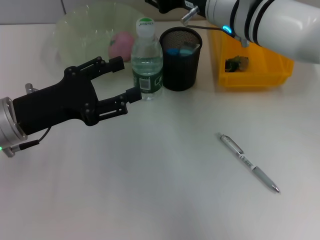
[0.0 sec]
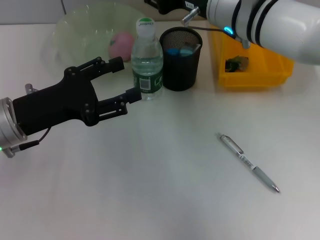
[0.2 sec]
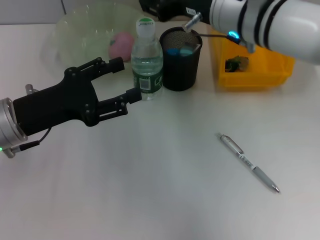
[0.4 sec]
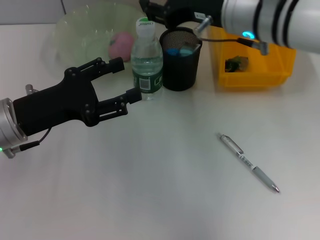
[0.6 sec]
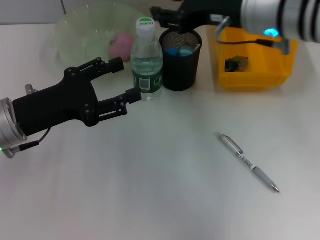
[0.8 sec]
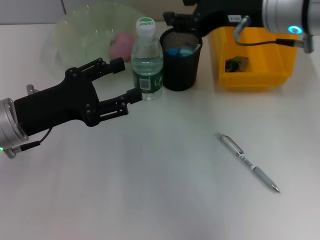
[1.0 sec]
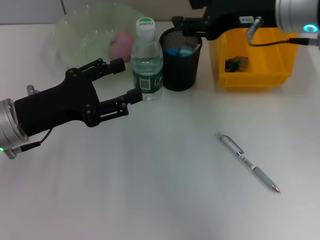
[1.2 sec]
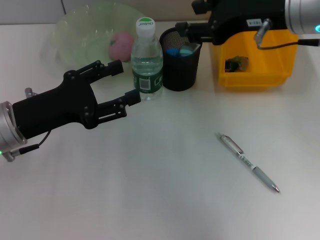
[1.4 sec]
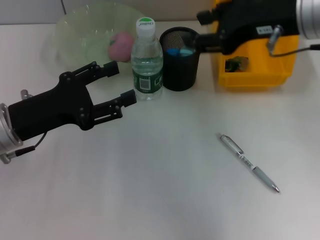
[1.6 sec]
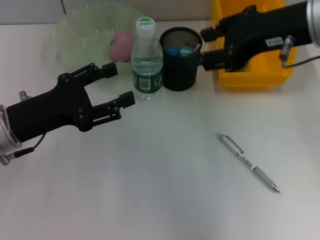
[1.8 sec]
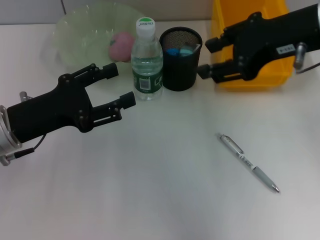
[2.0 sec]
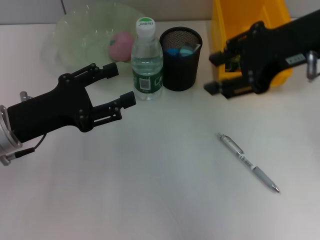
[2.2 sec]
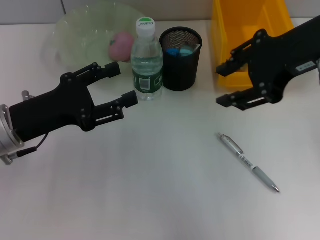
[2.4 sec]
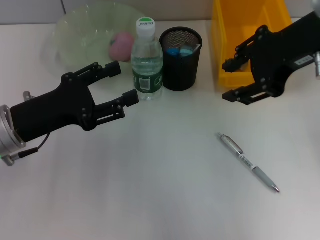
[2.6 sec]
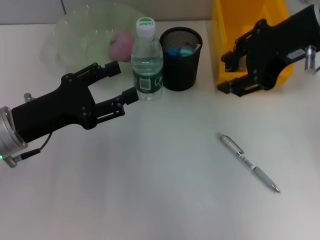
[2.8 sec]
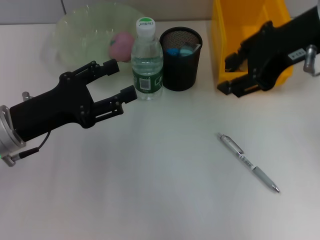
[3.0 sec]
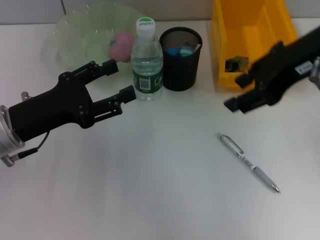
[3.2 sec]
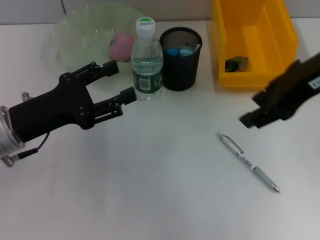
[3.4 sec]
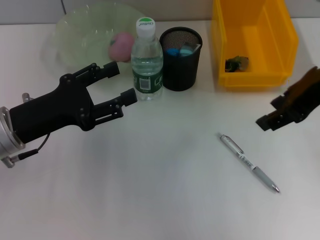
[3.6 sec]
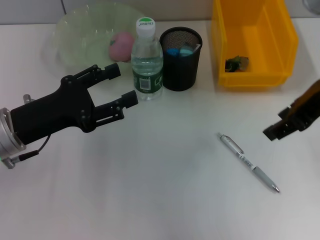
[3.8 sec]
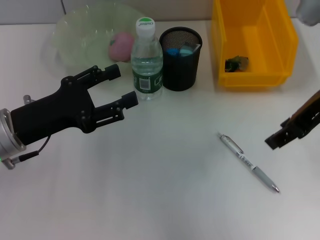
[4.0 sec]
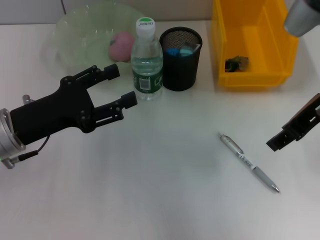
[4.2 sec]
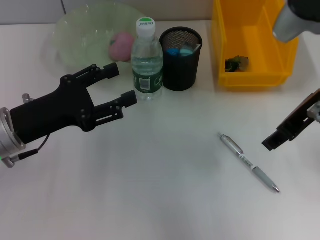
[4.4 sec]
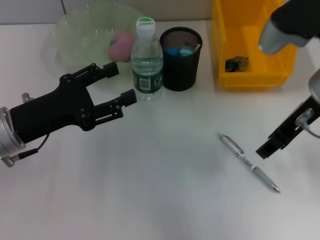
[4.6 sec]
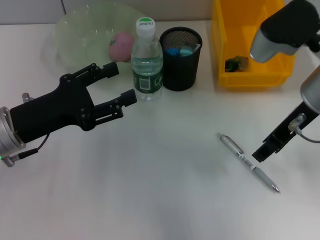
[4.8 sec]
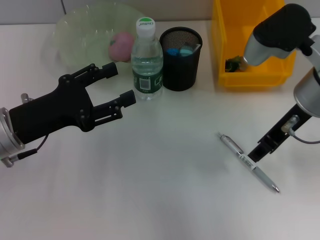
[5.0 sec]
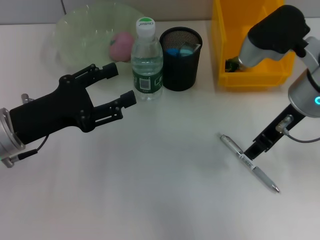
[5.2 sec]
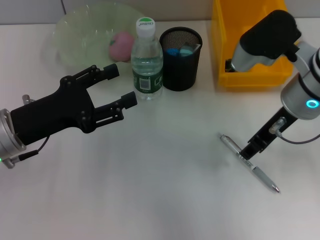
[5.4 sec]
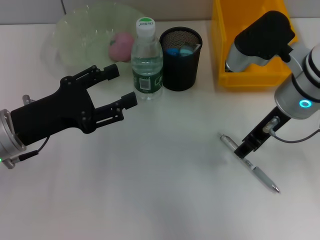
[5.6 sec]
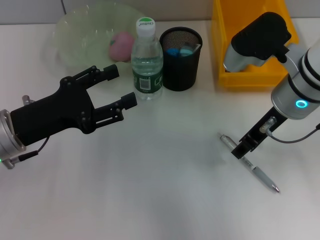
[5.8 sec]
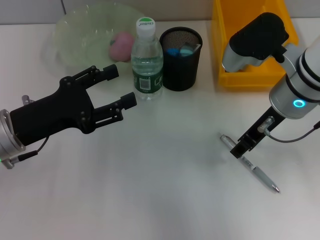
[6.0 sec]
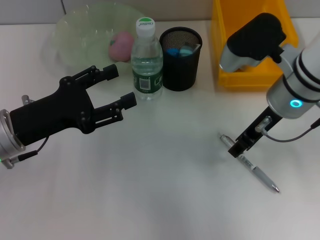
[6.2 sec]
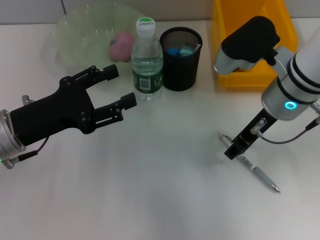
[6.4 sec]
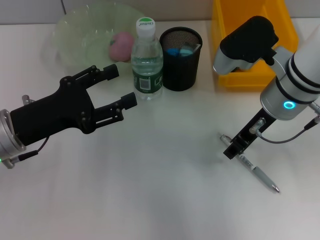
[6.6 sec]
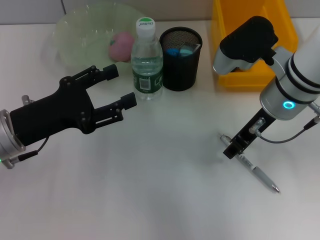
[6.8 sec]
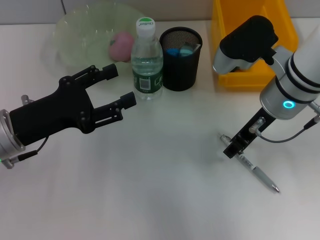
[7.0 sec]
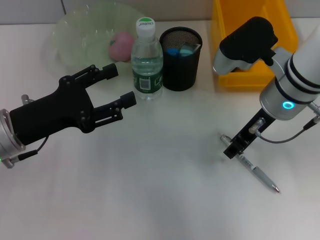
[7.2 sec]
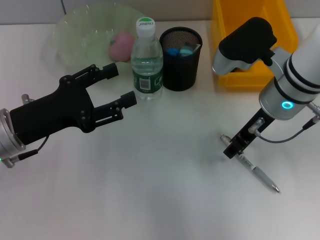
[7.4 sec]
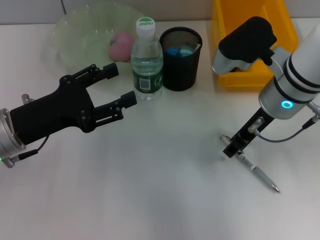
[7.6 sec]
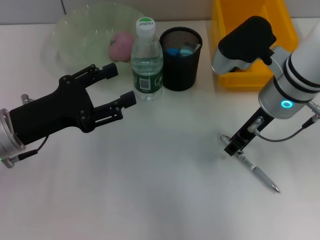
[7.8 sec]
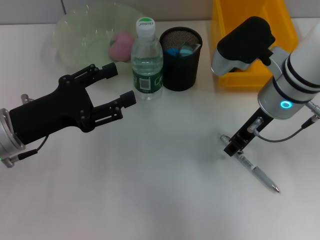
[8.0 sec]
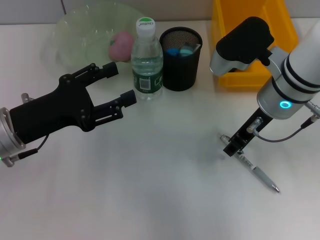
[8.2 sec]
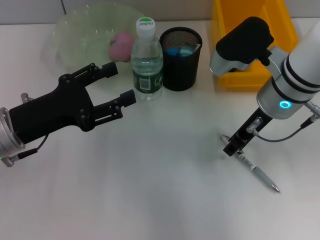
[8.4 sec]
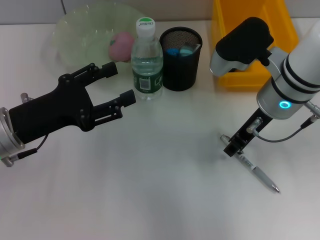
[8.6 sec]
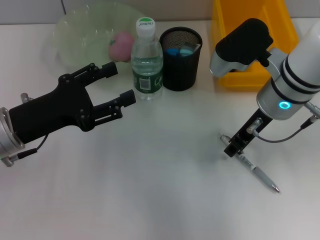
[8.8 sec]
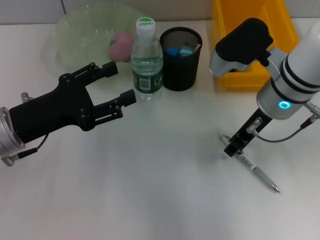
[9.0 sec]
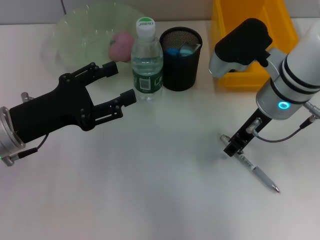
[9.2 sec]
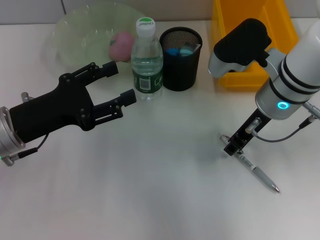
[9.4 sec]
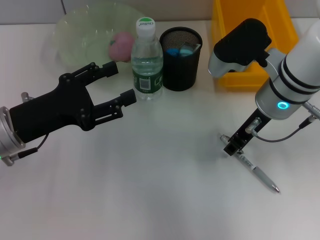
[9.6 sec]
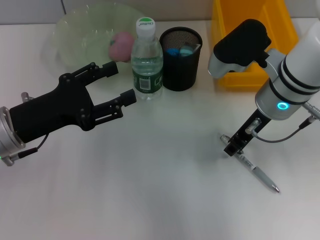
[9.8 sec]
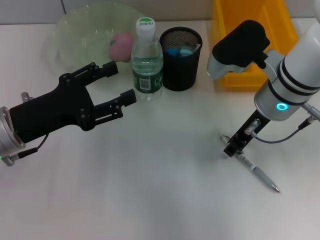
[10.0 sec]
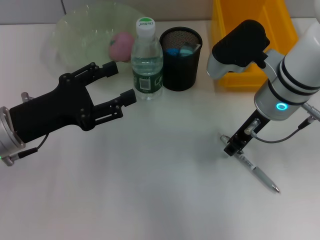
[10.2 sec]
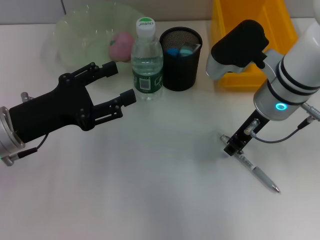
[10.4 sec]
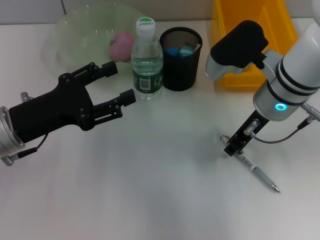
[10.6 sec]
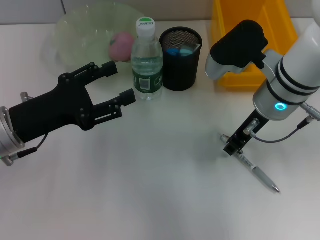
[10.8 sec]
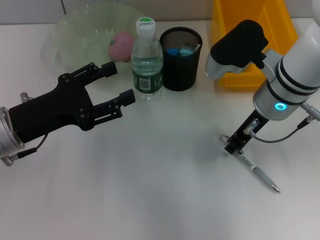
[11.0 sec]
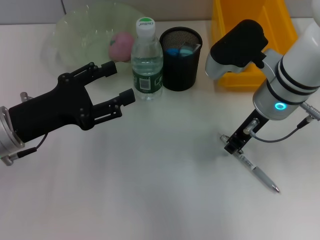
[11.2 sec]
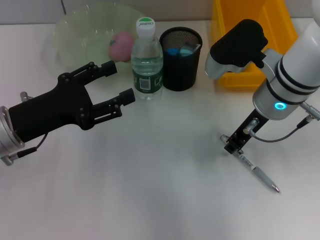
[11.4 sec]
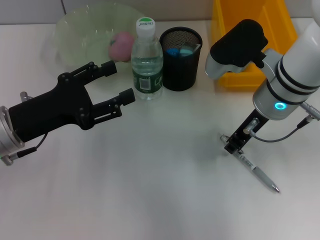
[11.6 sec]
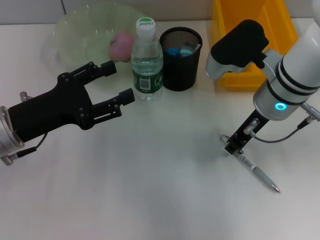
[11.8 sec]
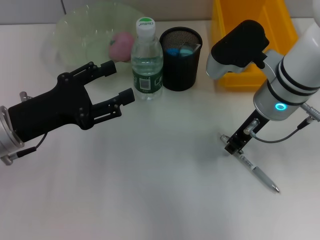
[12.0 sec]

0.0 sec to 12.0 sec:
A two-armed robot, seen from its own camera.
0.0 sec to 1.6 sec: The right gripper shifts roughly 10 cm to the right, upward and backward.
3.0 sec to 4.4 sec: The right gripper goes approximately 5 cm downward.
4.4 sec to 6.0 sec: The right gripper is displaced downward by roughly 5 cm.
6.0 sec to 7.6 sec: The grippers stay close to where they were, moving slightly.
7.6 sec to 12.0 sec: Both grippers stay about where they are.

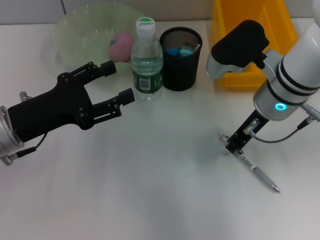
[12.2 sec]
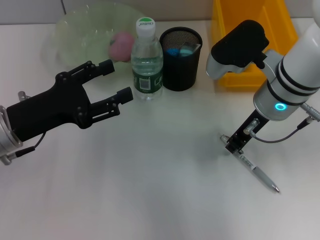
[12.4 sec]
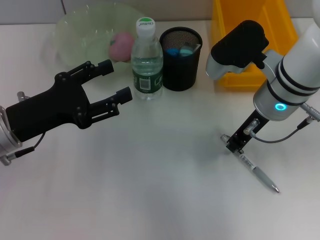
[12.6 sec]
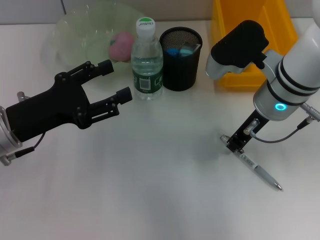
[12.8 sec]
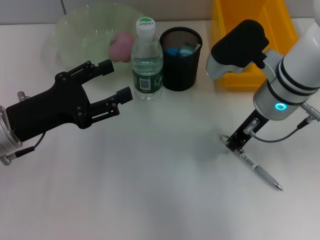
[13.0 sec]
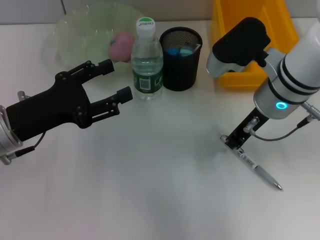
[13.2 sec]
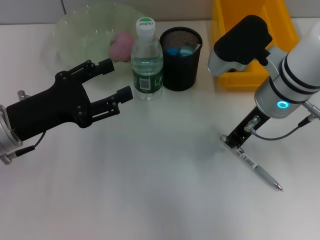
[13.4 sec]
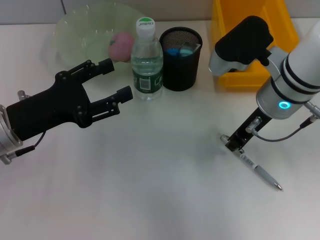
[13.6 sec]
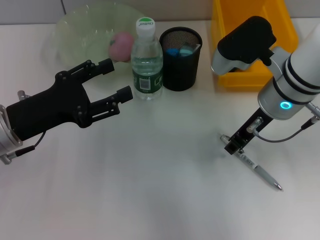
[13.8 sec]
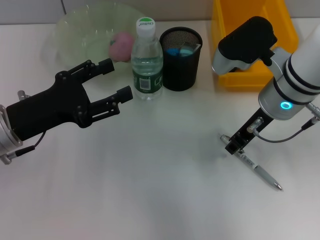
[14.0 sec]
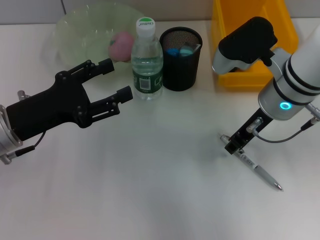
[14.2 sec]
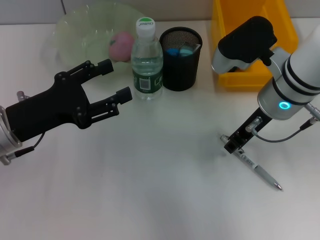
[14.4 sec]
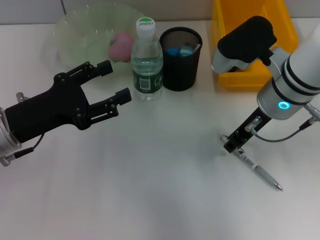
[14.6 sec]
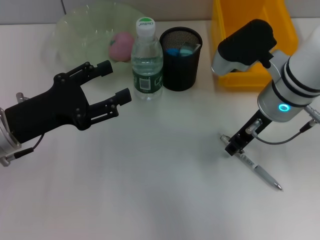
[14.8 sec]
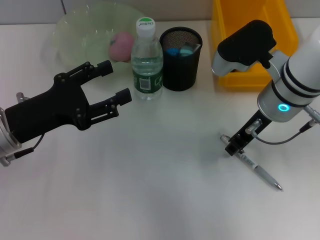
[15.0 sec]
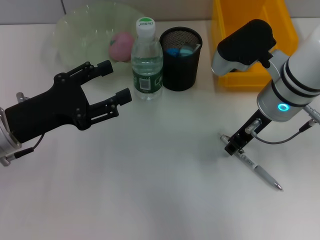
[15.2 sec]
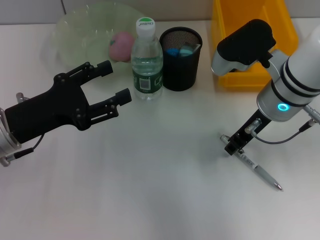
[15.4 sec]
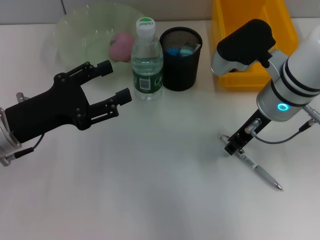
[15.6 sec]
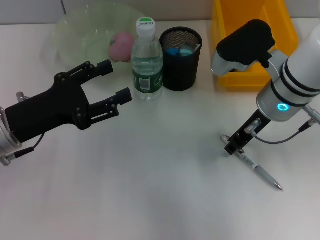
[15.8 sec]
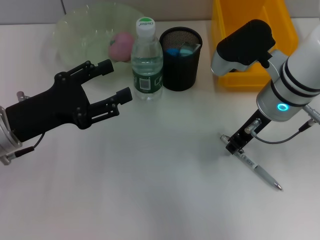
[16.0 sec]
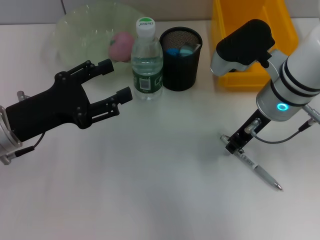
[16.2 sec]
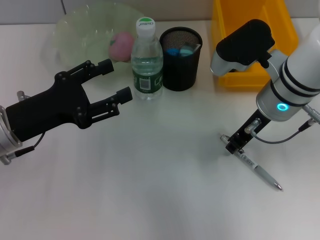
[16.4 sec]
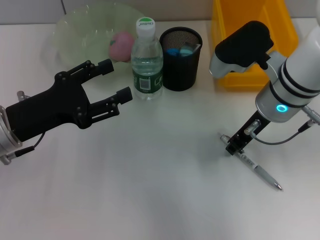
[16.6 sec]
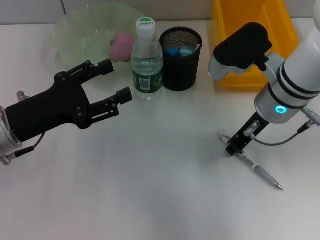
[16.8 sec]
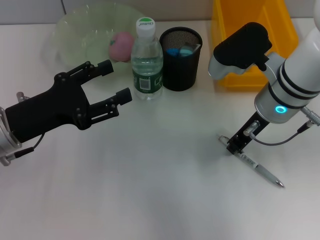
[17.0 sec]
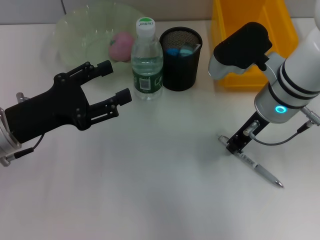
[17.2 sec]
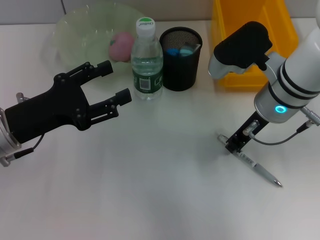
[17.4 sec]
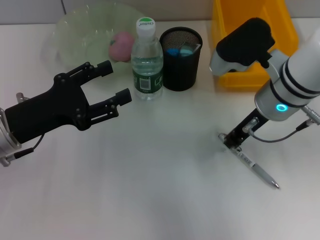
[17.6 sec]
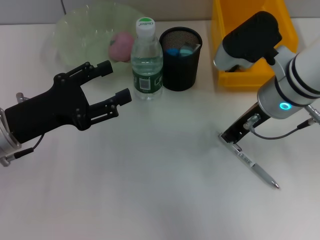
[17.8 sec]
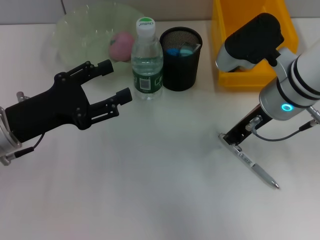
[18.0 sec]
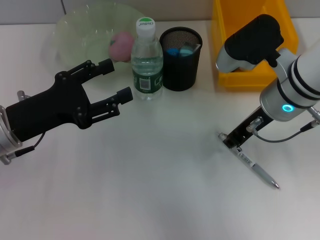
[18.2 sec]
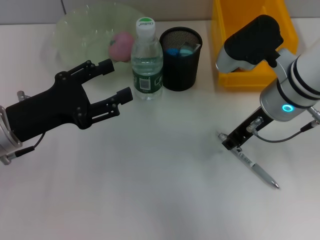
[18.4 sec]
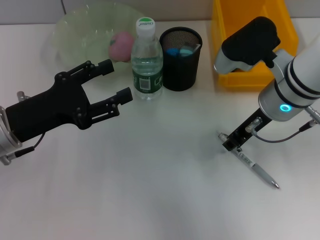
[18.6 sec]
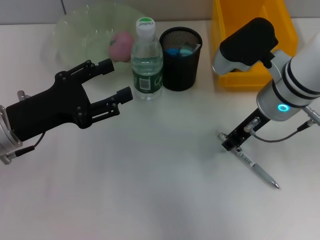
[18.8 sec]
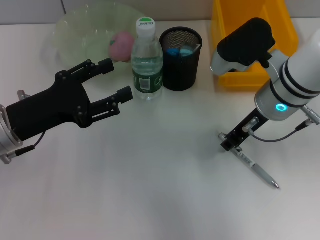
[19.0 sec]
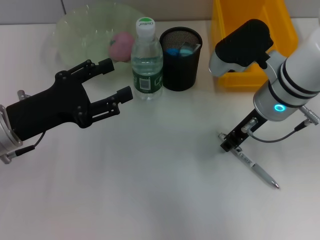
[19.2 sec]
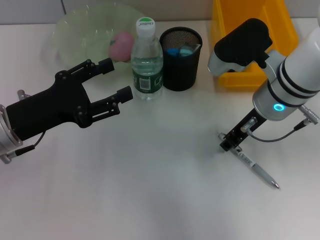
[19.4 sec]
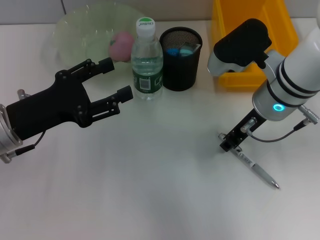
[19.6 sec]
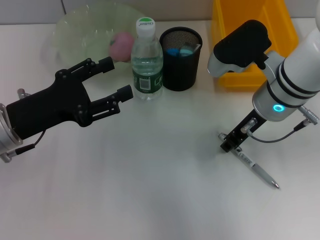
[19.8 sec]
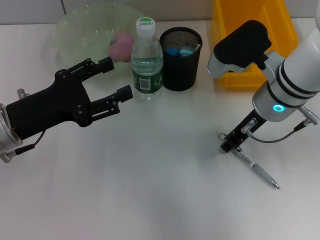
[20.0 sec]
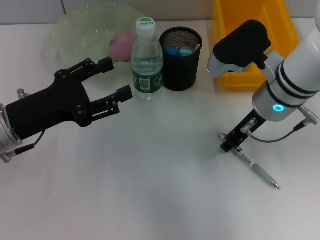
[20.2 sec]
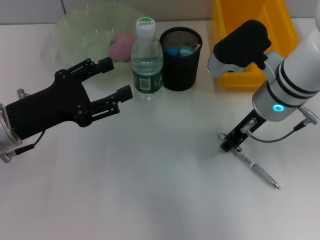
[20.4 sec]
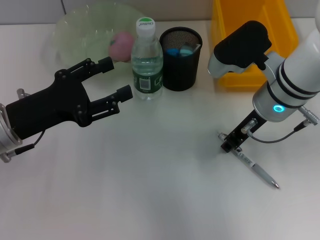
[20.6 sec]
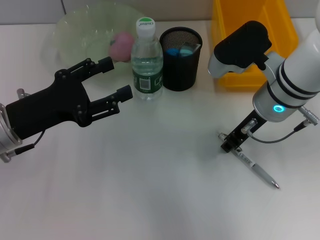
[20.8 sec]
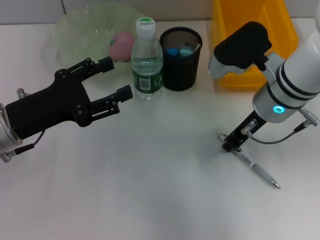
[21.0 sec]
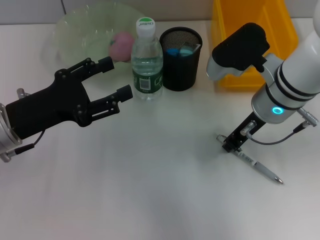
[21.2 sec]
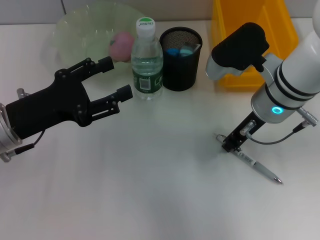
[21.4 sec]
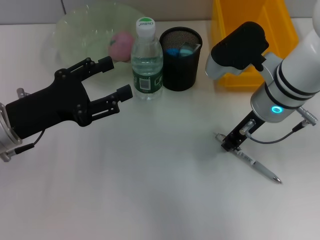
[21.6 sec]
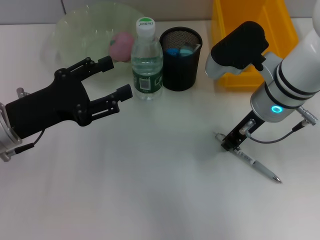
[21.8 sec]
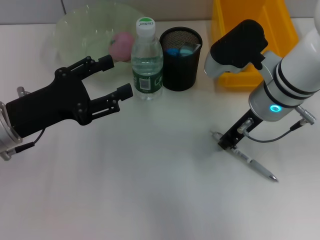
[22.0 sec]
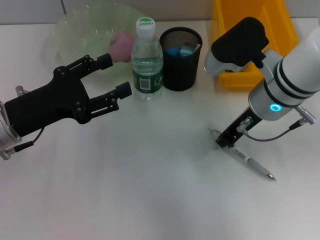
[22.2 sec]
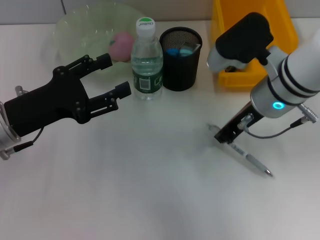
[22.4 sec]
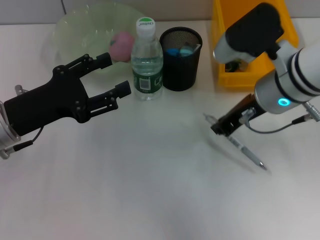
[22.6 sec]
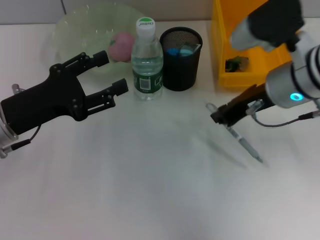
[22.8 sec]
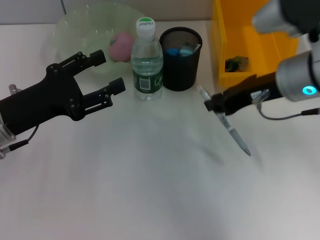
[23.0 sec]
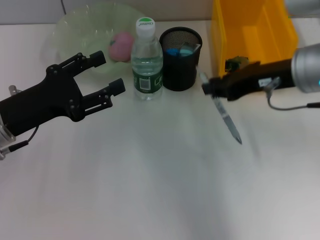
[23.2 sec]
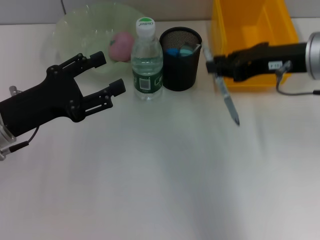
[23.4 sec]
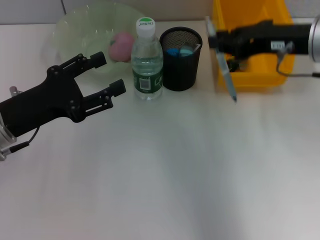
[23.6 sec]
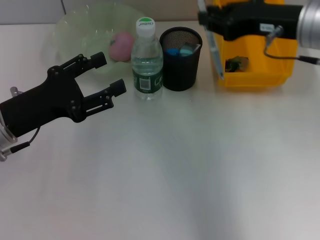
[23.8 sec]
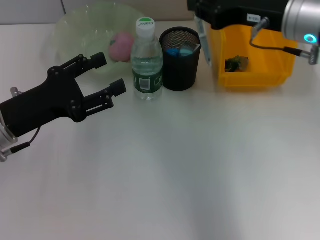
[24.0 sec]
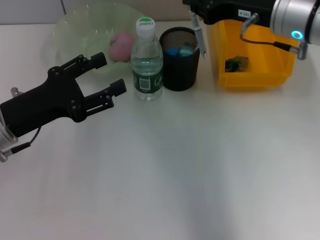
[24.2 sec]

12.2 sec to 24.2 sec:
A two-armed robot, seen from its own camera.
Step, 12.2 sec to 21.8 sec: Grab the gray spring-action pen with the right hand.
12.2 sec to 16.6 sec: Neither gripper changes place.
16.6 sec to 19.8 sec: The grippers move only a little.
19.8 sec to 21.2 sec: The two grippers keep their place.
21.2 sec to 22.6 sec: The grippers move only a little.
22.6 sec to 24.2 sec: The right gripper moves some 5 cm.
